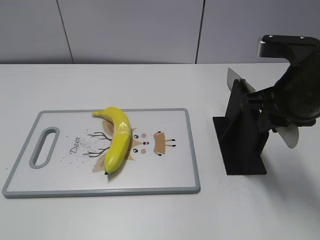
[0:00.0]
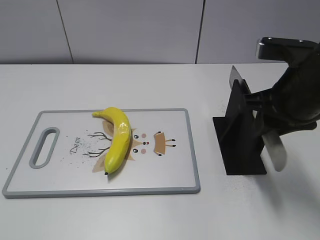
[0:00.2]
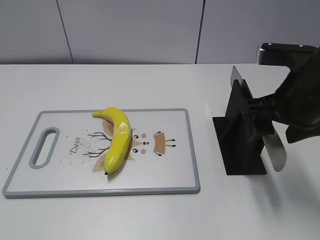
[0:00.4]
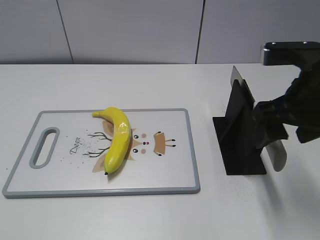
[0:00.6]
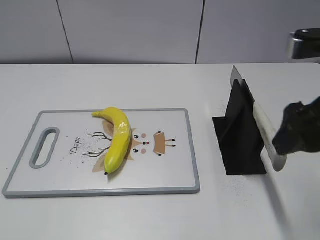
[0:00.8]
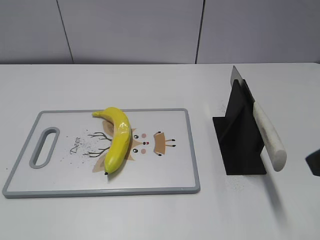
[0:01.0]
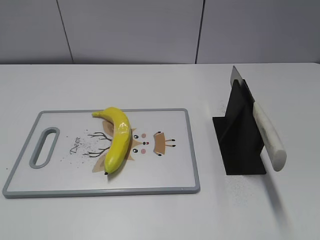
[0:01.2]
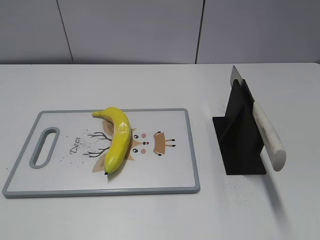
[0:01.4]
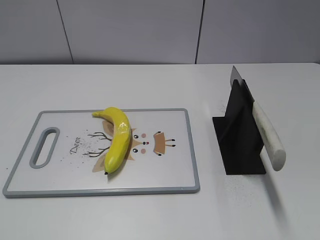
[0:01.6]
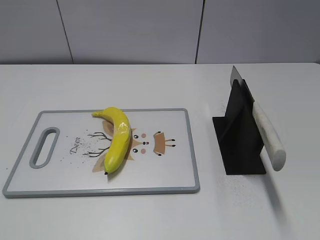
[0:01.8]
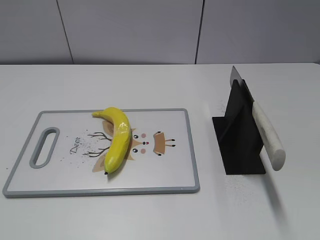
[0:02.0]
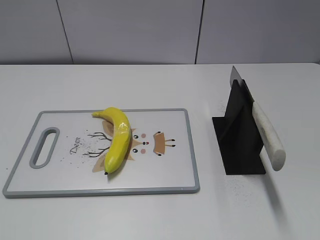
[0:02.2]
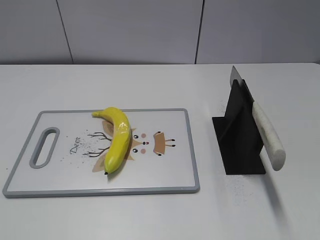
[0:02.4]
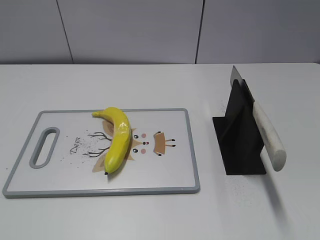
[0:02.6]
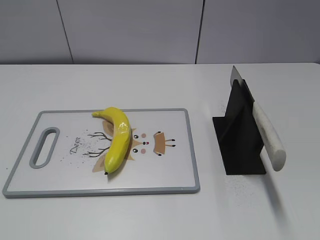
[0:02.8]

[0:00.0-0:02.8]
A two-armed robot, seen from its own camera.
Task of the whole recording: cut plastic banana.
Step, 0:00.0 to 0:02.8: Place the knife on the storage rack with your right hand.
0:00.0 to 0:01.4: The right gripper shifts about 20 cm backward, and opens.
